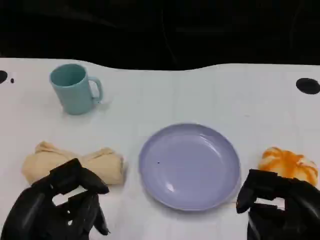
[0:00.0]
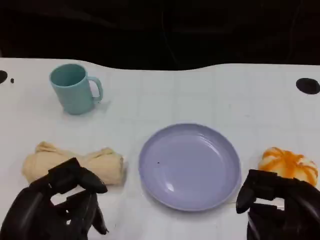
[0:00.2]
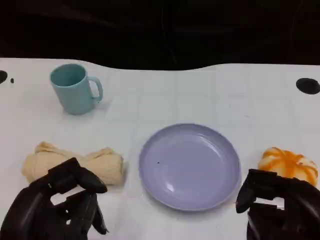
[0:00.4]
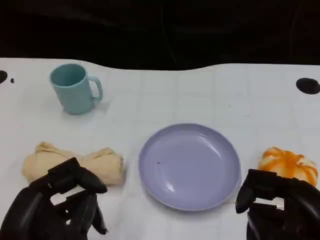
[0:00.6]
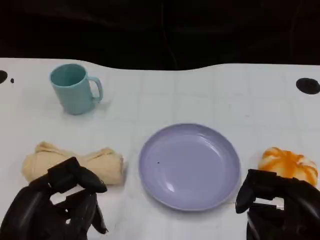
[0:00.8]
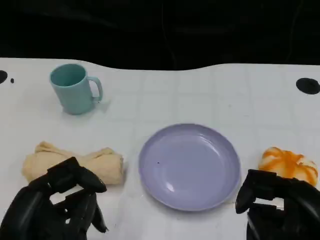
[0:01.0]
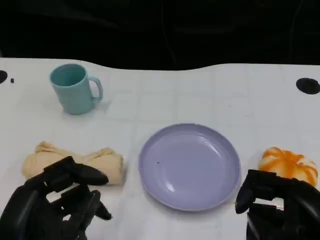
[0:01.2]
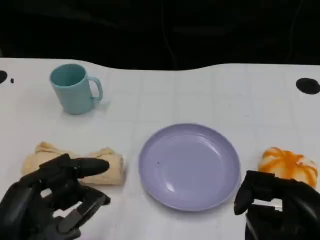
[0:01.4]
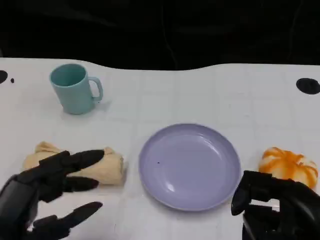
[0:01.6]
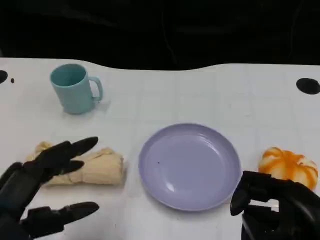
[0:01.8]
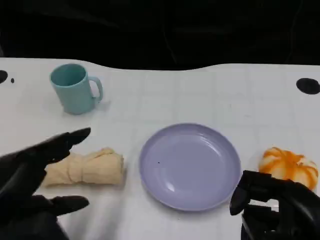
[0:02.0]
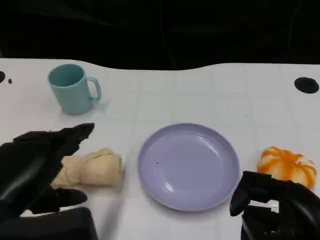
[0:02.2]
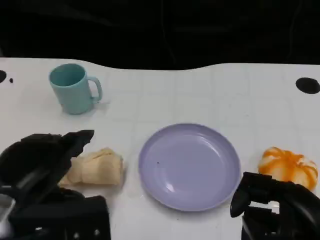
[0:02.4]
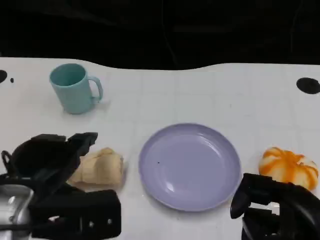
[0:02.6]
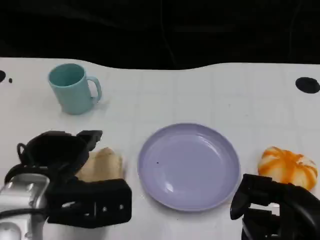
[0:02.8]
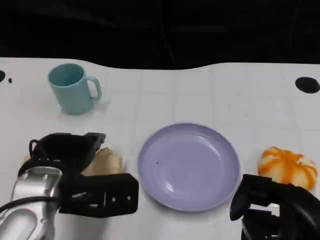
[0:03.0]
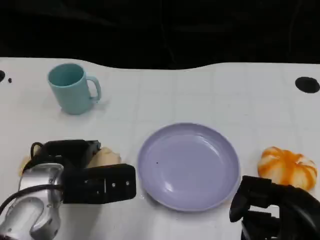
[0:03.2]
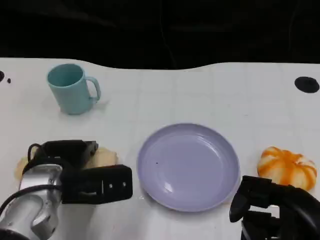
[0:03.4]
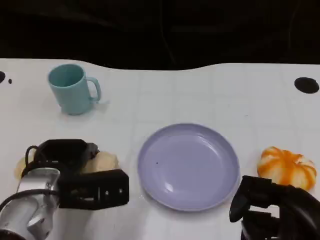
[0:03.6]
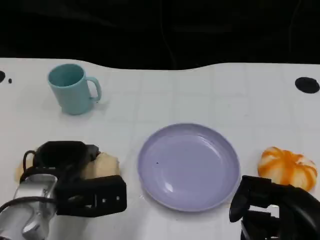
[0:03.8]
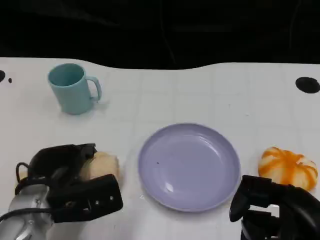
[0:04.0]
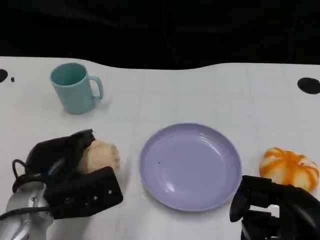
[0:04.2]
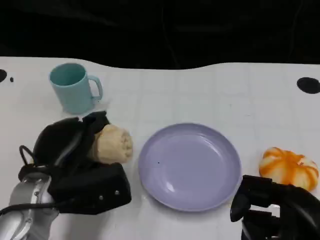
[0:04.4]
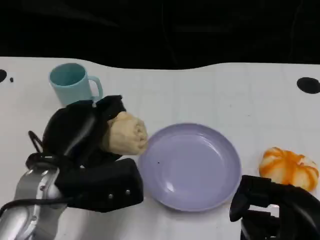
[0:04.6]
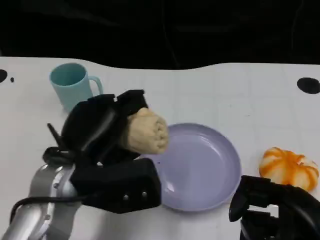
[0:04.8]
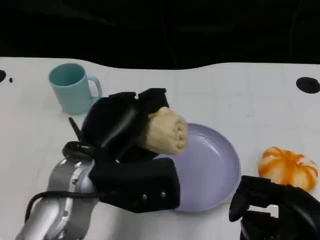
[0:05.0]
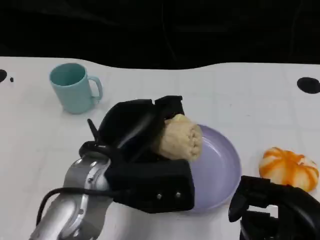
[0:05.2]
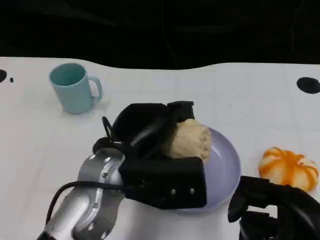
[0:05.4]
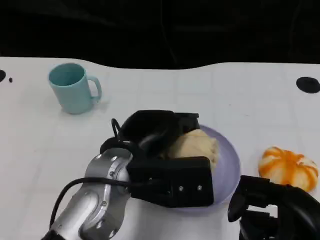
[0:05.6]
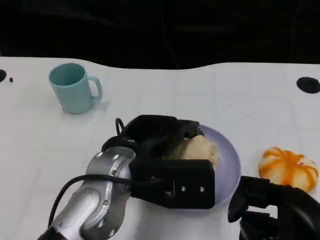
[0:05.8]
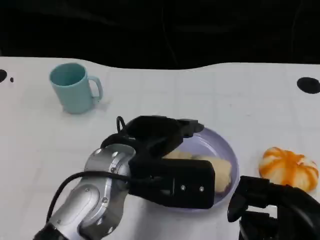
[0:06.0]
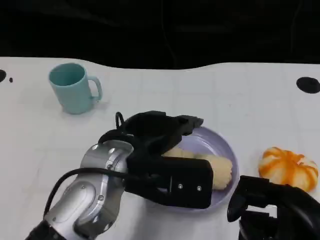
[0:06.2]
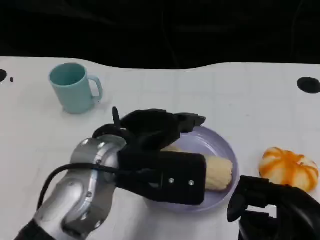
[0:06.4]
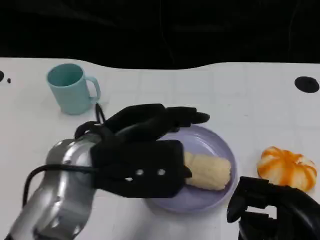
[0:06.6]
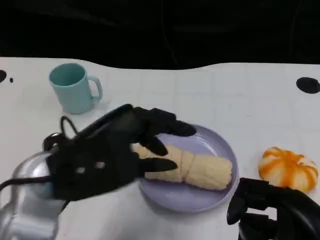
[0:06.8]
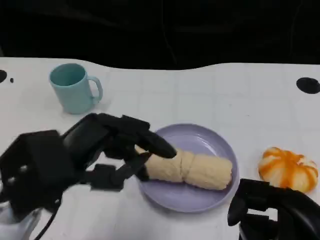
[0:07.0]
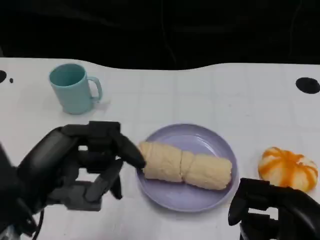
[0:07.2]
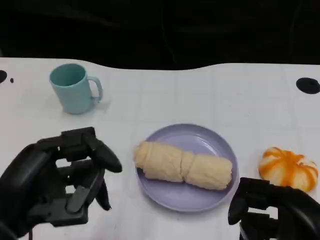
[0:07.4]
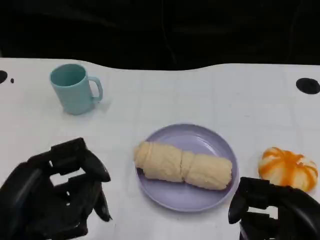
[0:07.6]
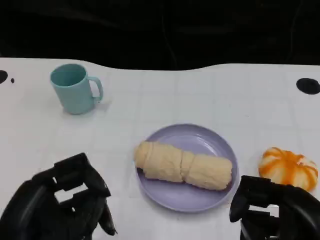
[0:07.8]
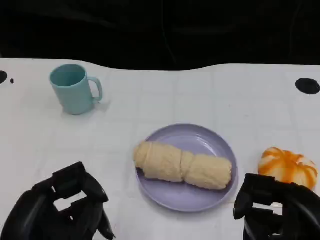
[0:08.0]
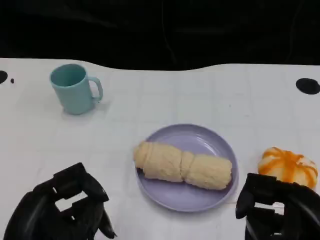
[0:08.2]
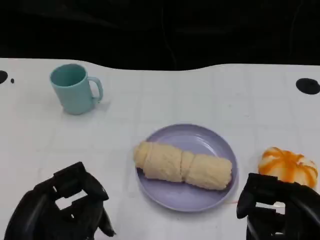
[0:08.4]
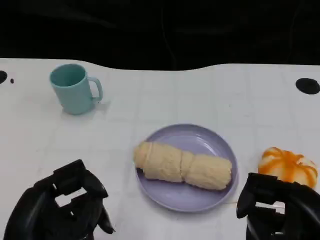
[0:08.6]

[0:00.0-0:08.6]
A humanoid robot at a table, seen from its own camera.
Task of the whole recording: Grasp the towel on the left side of the plate with the left hand and place it into the plate.
0:00.0 to 0:01.4: There are only small adjustments of the hands.
0:01.4 to 0:02.8: The left hand moves forward, approximately 10 cm.
0:04.4 to 0:05.8: The left hand travels to the right and upward by roughly 10 cm.
0:05.8 to 0:07.2: The left hand heads to the left and backward, covering approximately 15 cm.
0:07.2 to 0:08.6: The left hand heads downward, covering about 5 cm.
